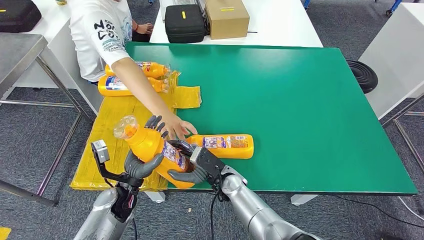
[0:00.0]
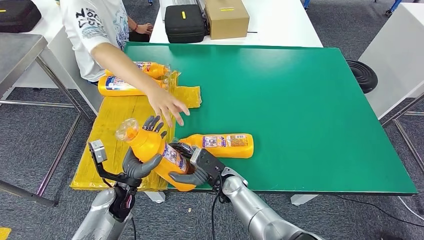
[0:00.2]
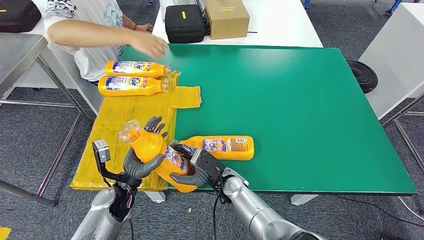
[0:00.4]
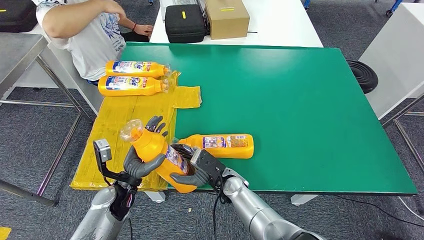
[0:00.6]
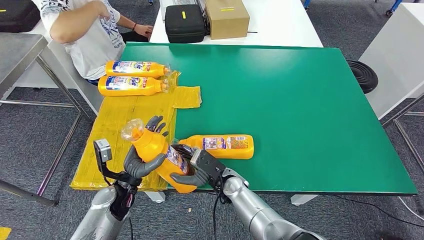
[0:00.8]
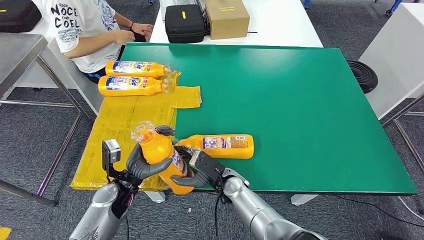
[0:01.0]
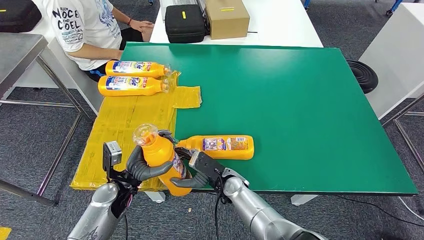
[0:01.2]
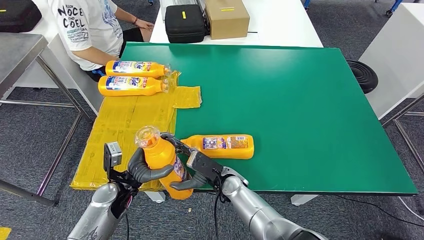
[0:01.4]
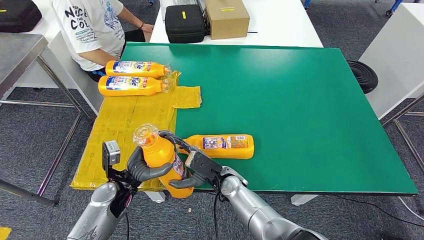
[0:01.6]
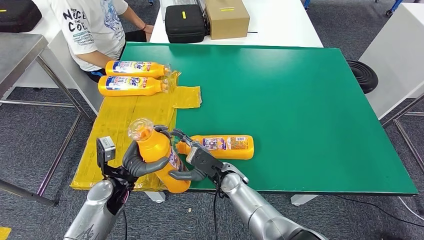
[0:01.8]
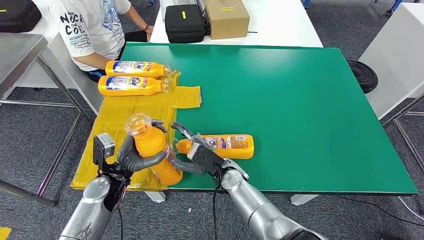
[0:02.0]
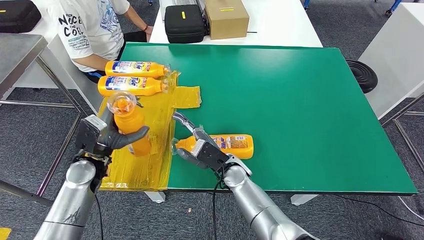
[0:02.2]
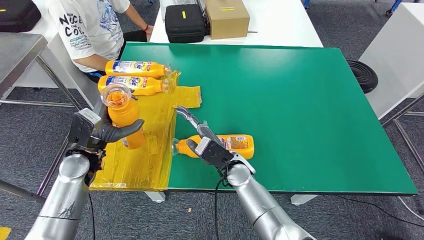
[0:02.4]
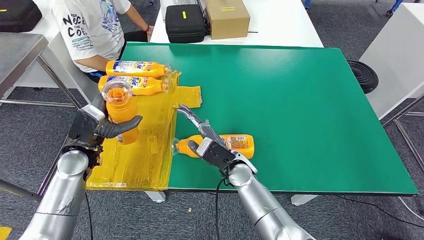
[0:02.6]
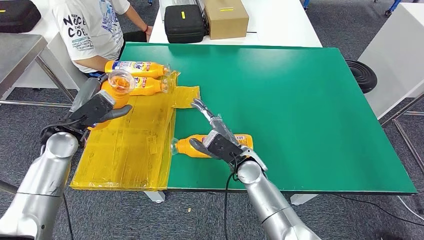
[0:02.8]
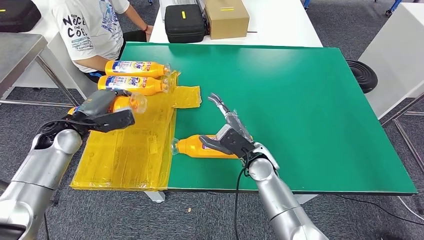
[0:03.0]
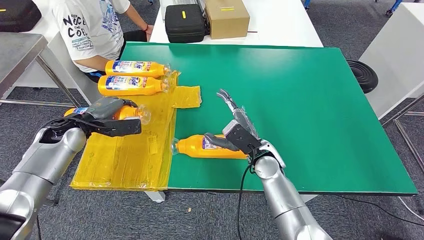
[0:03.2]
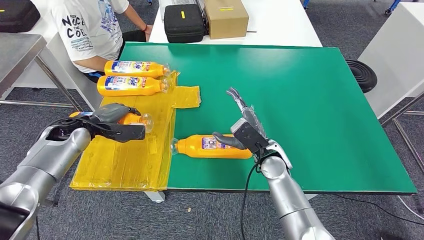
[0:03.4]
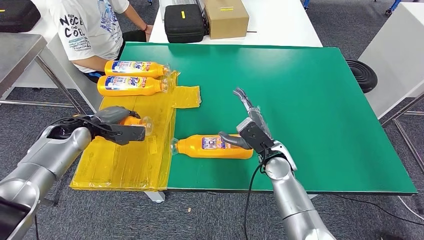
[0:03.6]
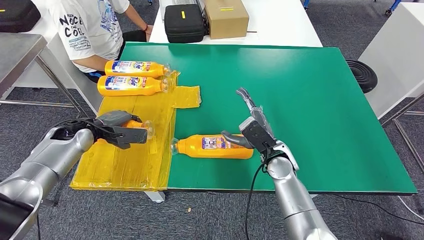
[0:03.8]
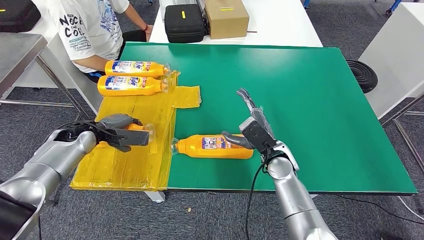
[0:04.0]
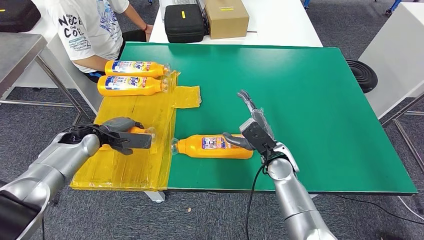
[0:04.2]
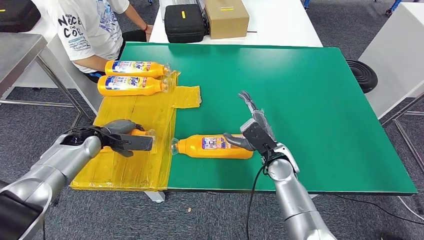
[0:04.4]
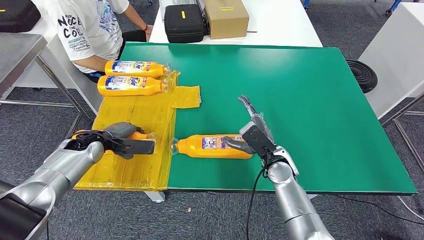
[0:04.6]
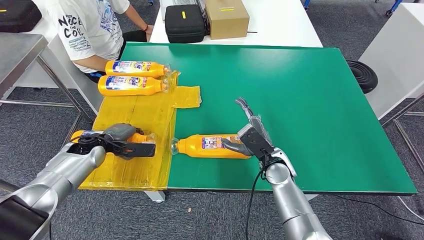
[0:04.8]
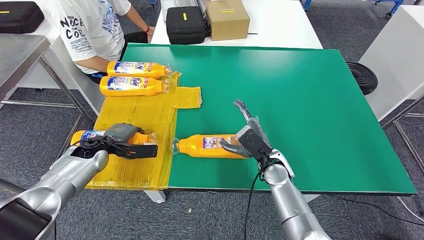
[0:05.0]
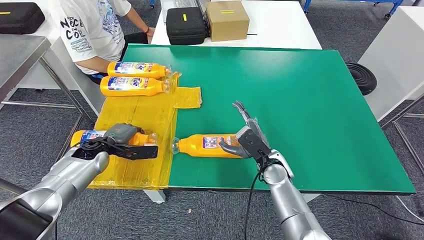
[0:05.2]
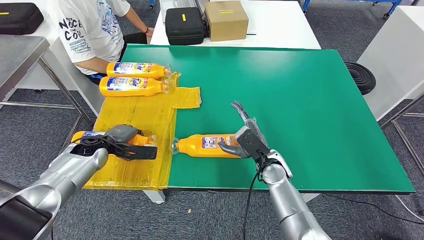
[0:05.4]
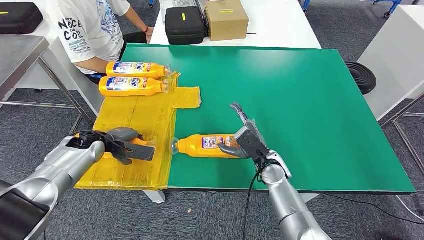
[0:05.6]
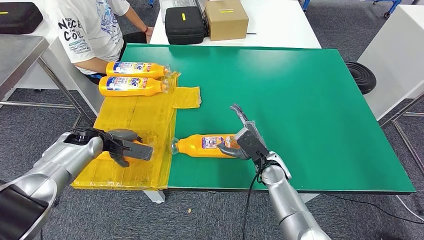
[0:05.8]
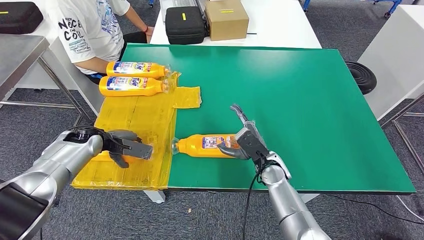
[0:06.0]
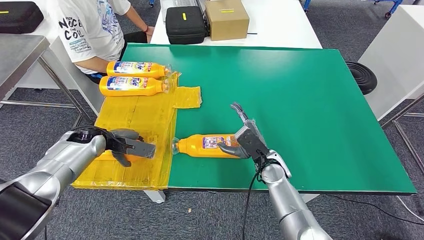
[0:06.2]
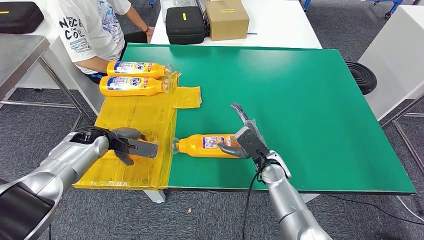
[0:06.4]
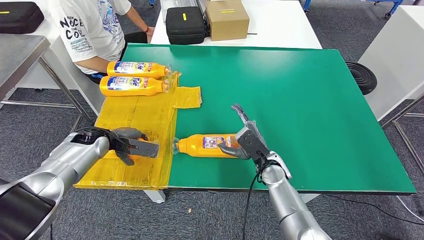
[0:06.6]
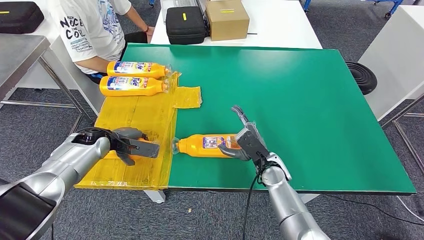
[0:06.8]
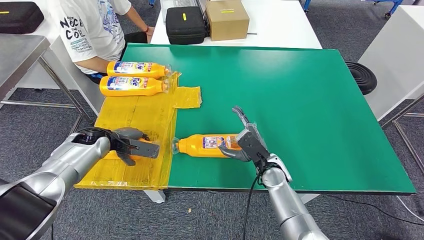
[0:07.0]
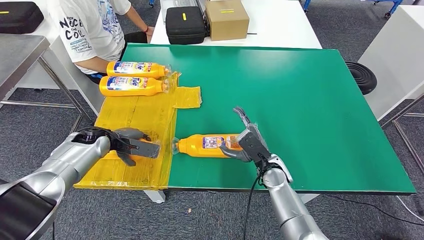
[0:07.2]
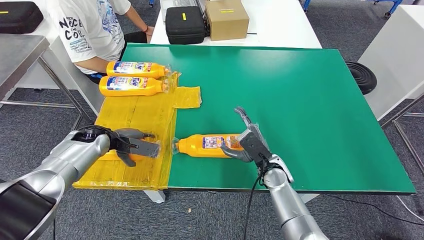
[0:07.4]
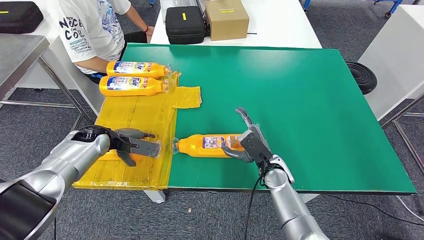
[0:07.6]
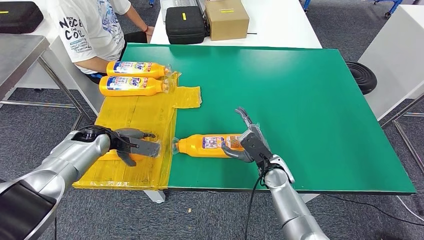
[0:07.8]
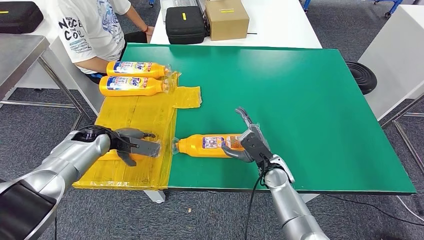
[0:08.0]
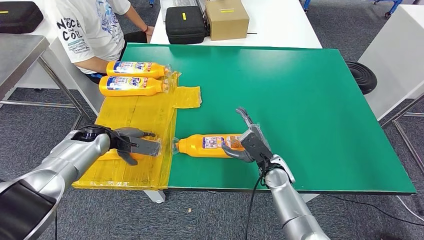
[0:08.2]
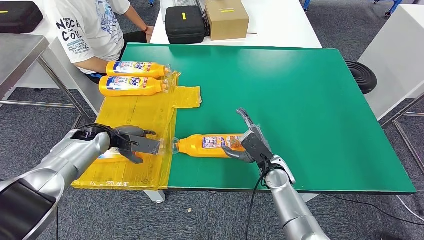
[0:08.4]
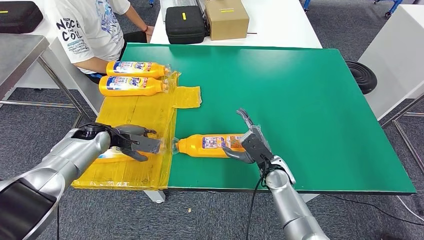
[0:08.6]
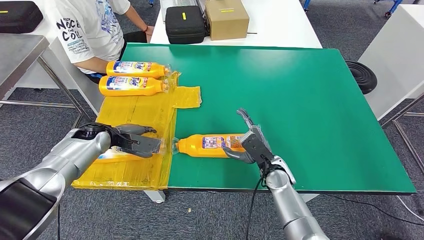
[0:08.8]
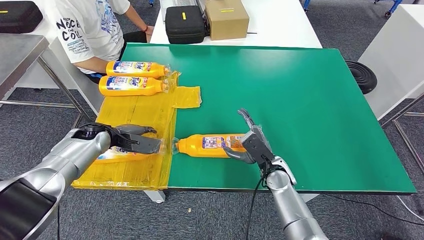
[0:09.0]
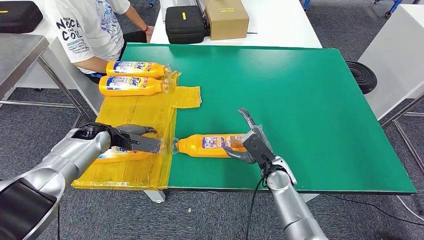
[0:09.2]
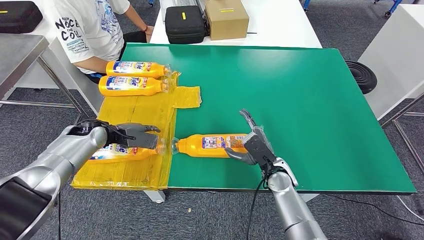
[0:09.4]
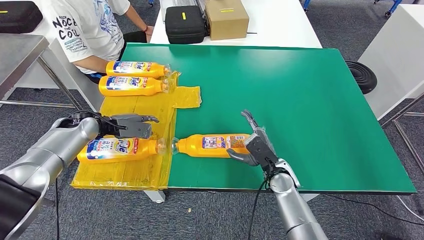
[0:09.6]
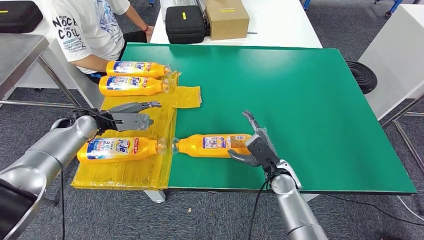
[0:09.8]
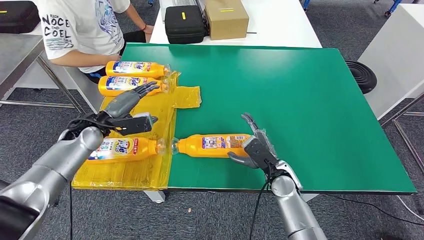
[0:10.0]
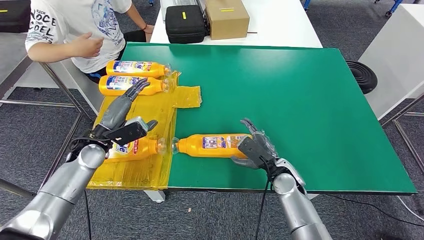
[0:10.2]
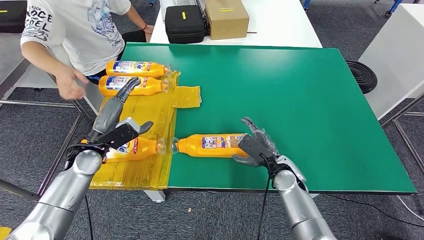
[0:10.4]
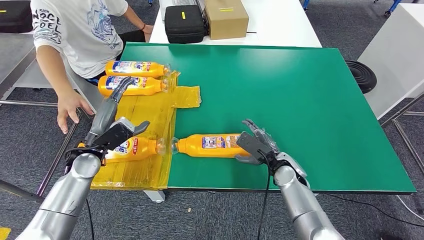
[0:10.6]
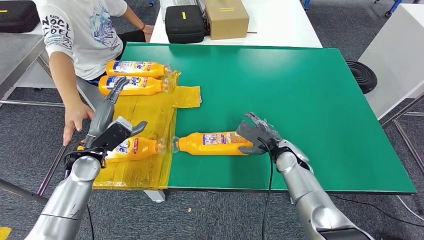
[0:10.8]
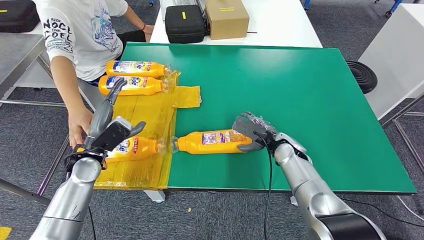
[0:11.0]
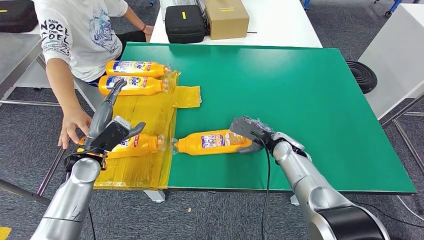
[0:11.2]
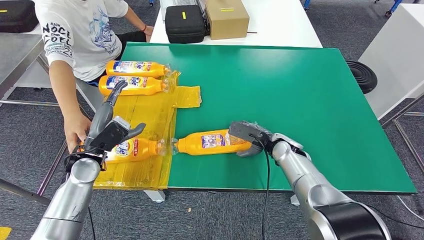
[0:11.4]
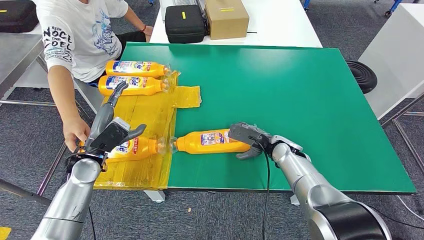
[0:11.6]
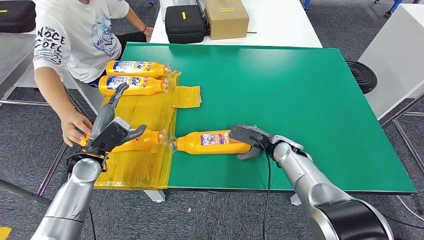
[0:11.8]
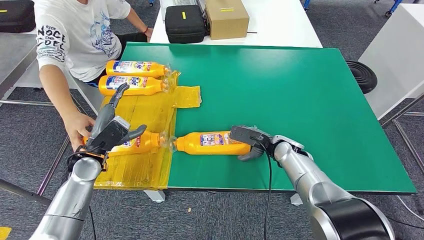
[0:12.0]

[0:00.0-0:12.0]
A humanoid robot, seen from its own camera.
Step, 0:00.0 to 0:04.2: Flip the bottle to face forward.
0:00.0 to 0:01.6: There are only small adjustments of the hands.
0:03.0 to 0:04.4: The right hand moves to the right, some 5 cm. The left hand goes roughly 5 cm downward.
0:04.4 to 0:07.6: The hands stay close to where they were, moving slightly.
0:07.6 to 0:09.0: Both hands stay about where they are.
0:09.0 to 0:10.4: The left hand is displaced backward by roughly 5 cm.
0:10.4 to 0:12.0: The right hand moves forward, roughly 5 cm.

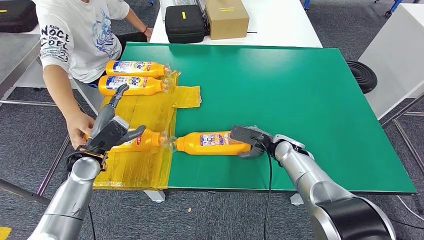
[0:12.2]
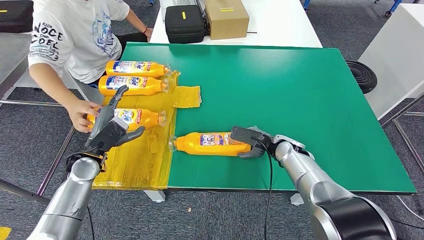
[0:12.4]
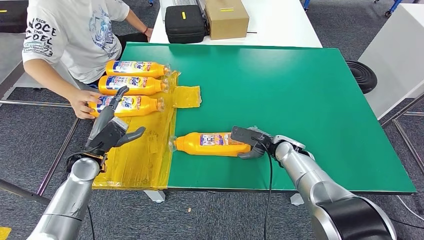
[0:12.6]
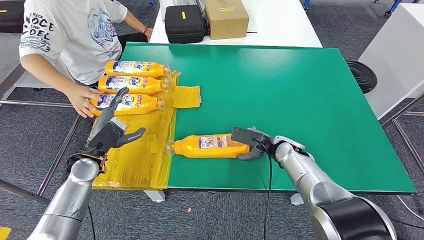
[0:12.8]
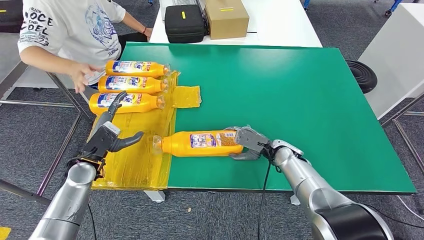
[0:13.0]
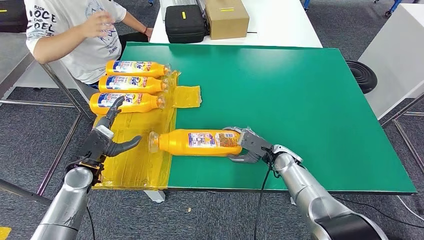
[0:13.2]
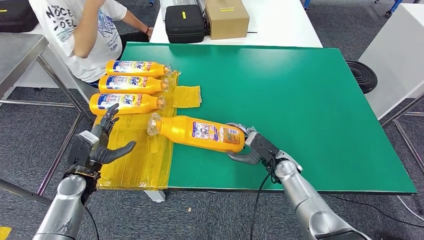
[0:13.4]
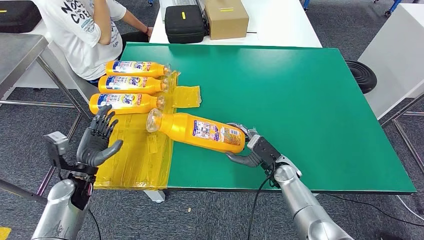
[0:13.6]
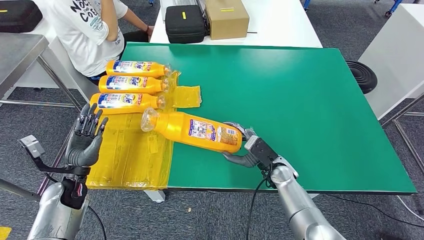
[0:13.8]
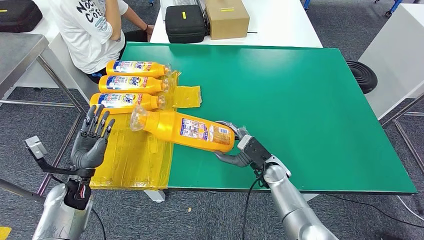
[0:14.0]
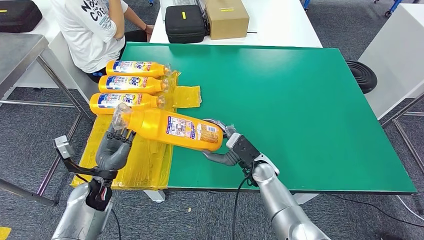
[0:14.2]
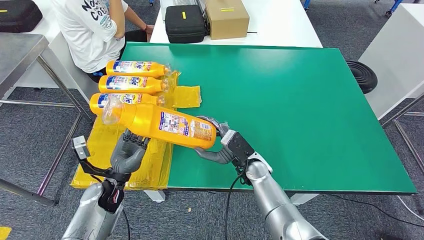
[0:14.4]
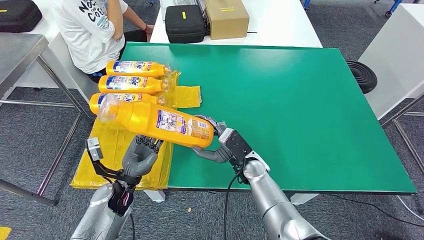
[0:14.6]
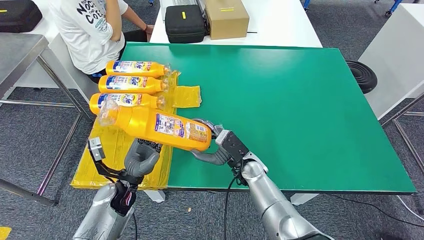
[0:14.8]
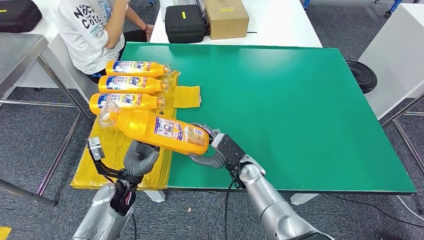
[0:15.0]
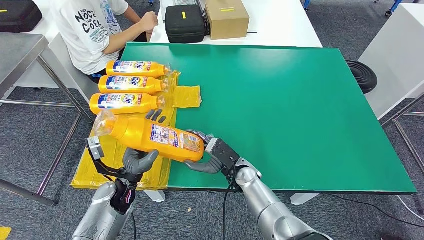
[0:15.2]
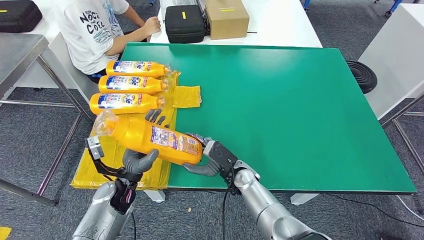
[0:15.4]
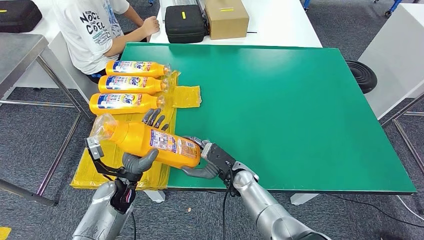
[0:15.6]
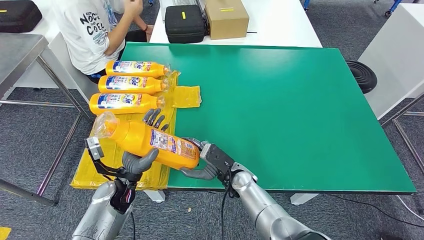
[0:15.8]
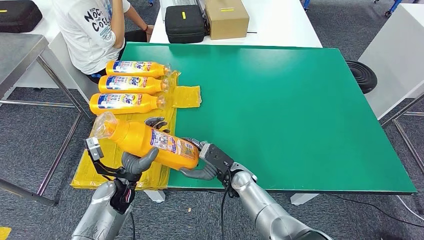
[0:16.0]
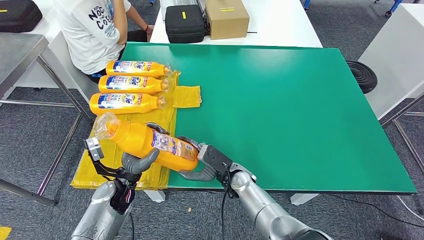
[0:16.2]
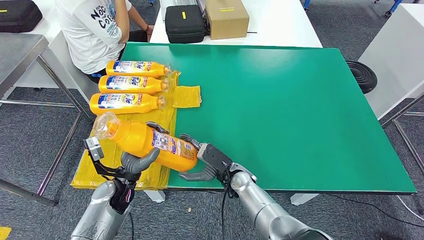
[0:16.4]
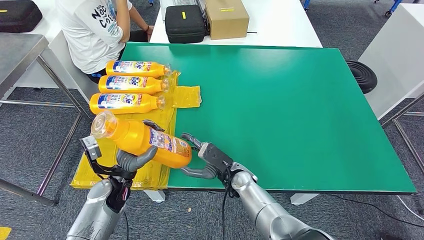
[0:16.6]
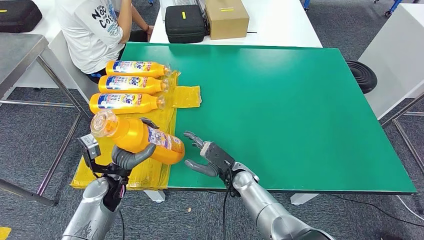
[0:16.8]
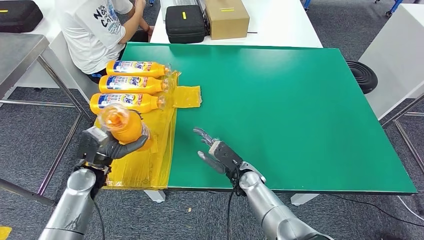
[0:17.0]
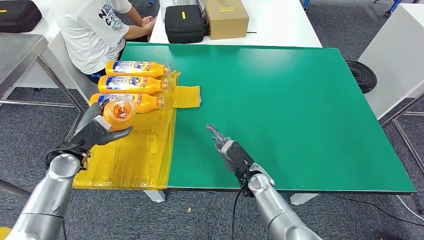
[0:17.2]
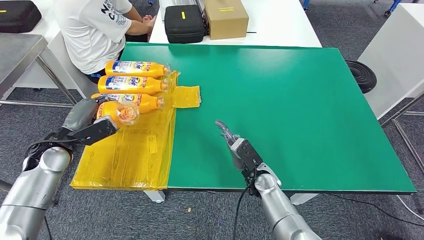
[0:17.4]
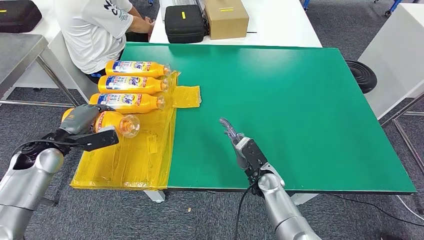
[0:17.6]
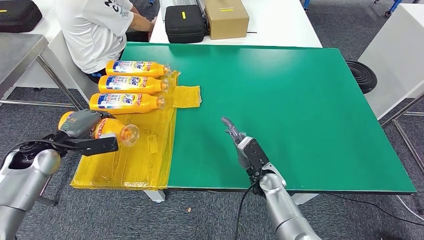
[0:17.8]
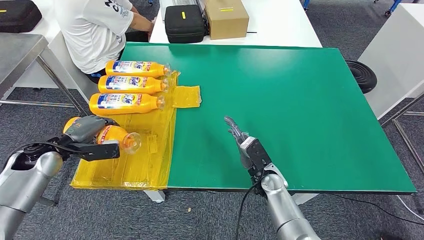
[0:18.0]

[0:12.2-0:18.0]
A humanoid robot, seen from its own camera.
Step, 0:12.2 to 0:15.2: Pick up the bottle from the table.
Step, 0:15.4 to 0:18.0: Flip the bottle to face forward.
0:15.0 to 0:16.6: The hands move only a little.
0:16.6 to 0:18.0: The left hand is displaced to the left and upward by about 20 cm. Meanwhile the right hand travels to the right by approximately 10 cm.
